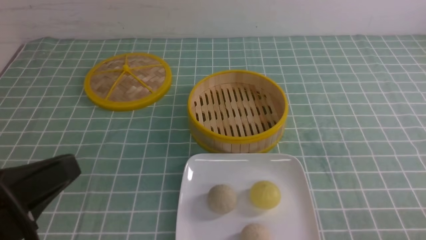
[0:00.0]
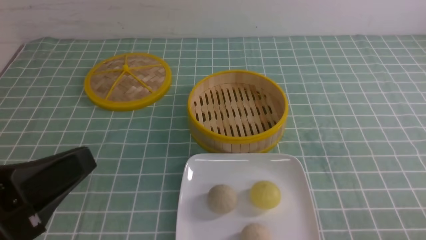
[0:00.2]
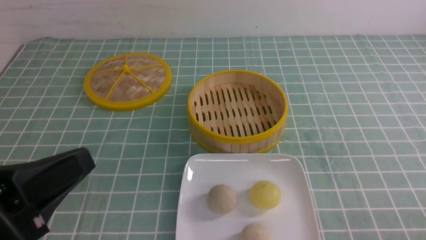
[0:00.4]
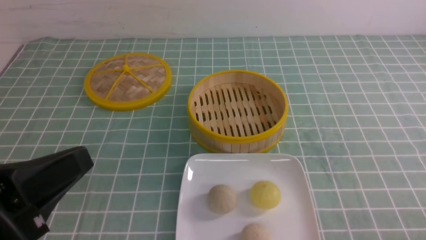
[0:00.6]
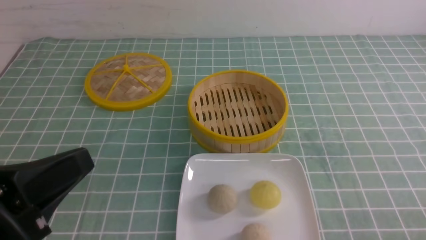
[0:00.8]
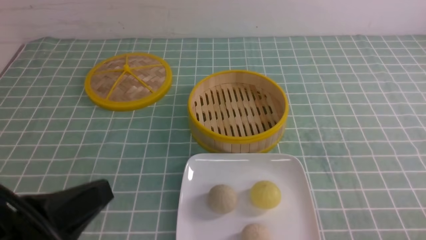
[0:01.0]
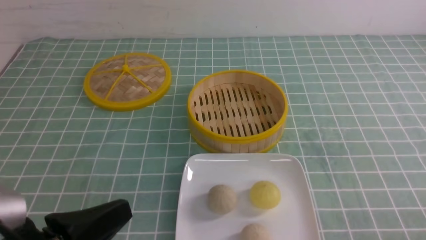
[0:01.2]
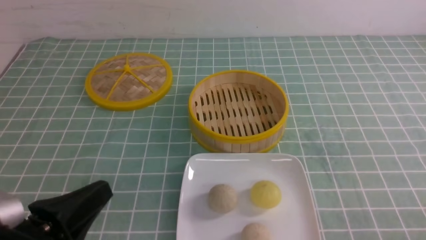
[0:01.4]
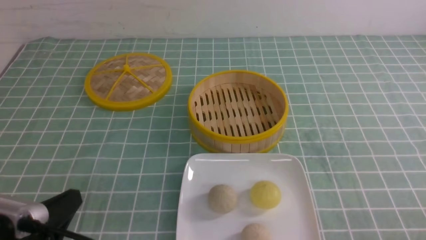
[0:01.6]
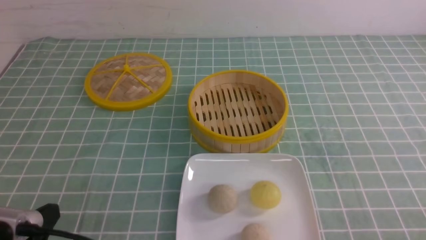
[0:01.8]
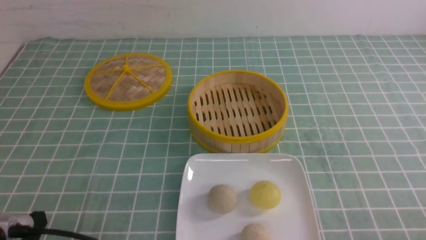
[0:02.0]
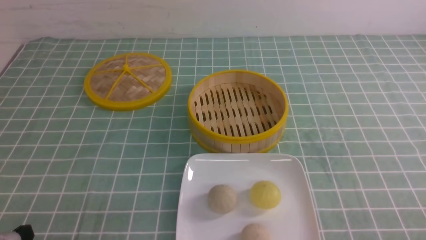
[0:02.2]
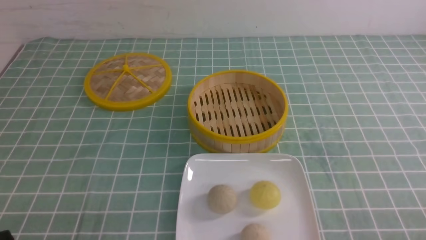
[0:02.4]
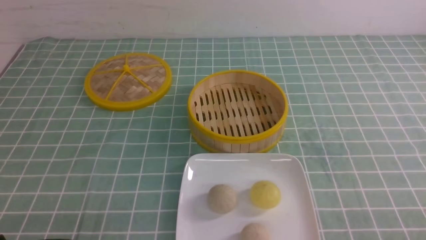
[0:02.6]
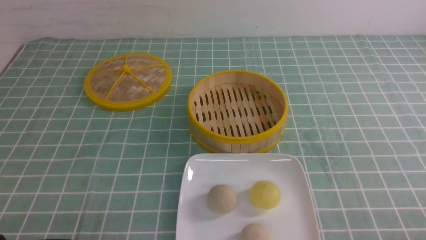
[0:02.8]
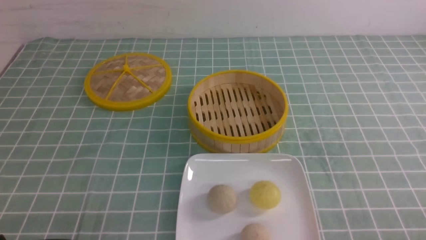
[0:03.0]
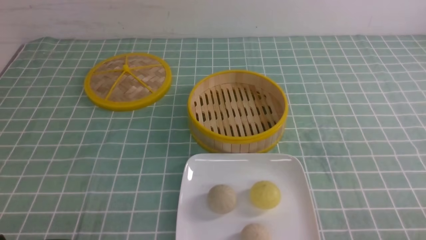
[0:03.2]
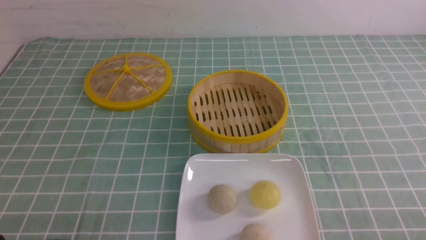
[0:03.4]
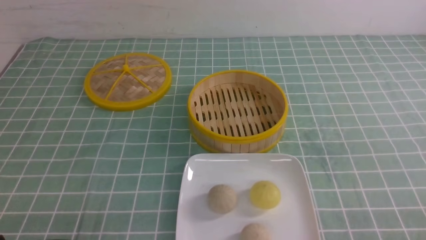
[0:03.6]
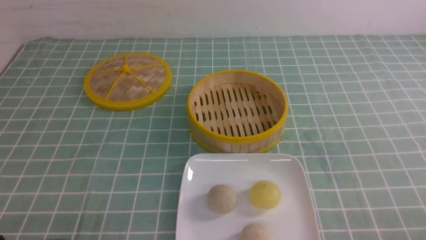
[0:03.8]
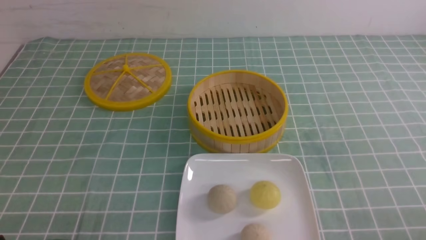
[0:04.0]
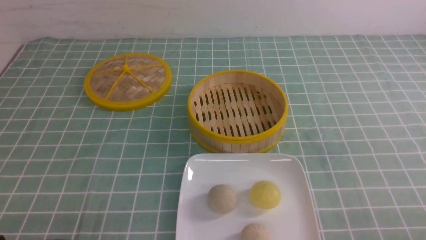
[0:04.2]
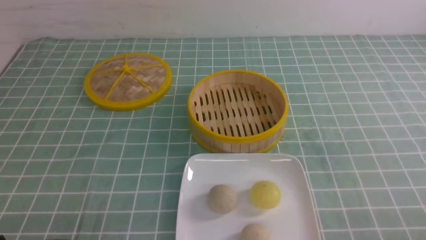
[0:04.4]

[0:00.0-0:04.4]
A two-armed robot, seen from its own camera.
0:00.0 to 0:01.4: The left gripper is displaced downward by roughly 10 cm.
0:01.4 to 0:03.0: The left gripper goes roughly 10 cm downward and to the left.
0:03.0 to 0:04.4: Neither gripper changes place.
